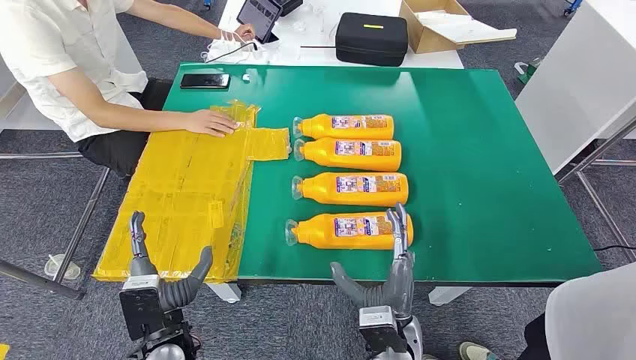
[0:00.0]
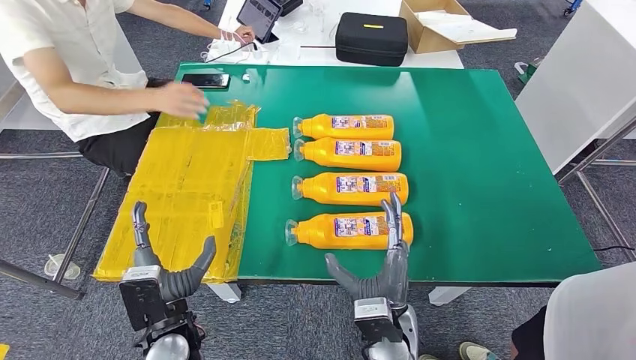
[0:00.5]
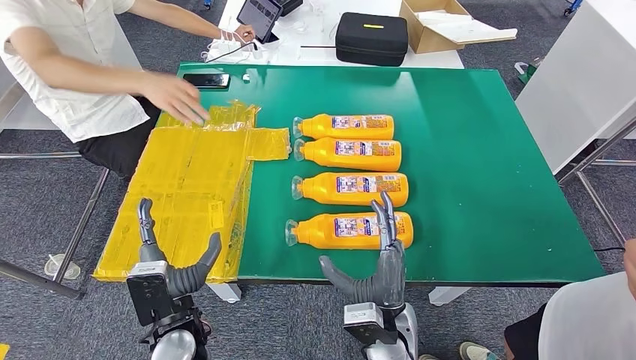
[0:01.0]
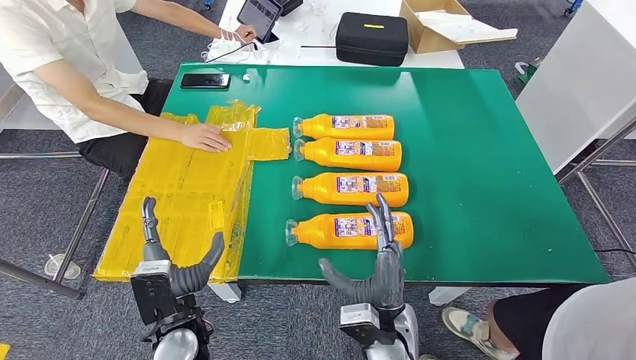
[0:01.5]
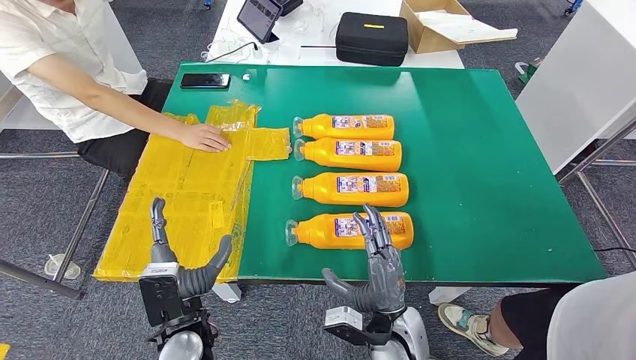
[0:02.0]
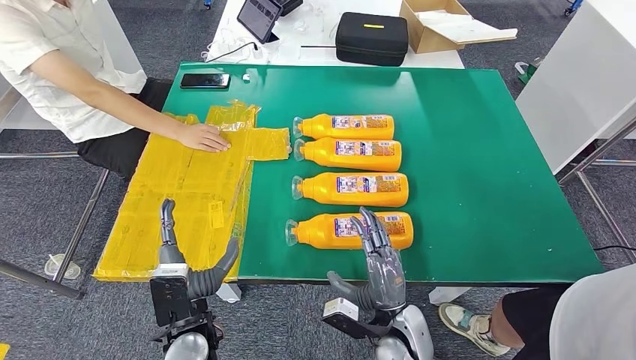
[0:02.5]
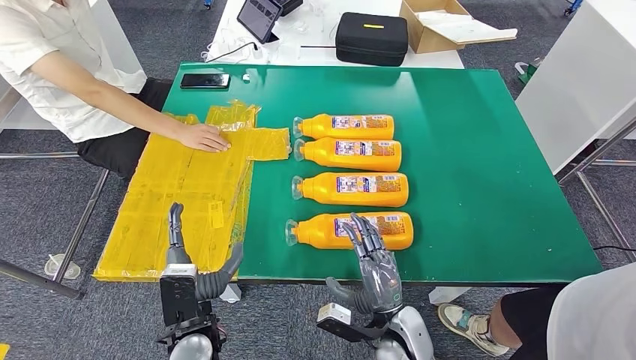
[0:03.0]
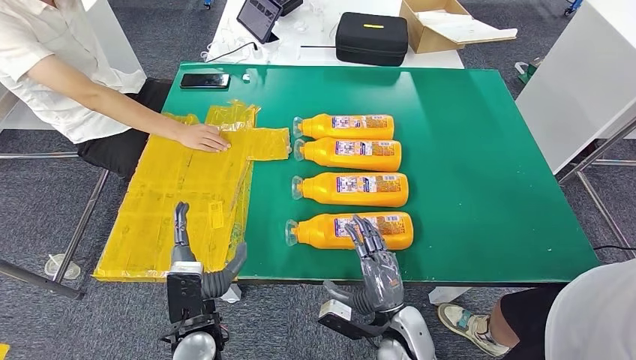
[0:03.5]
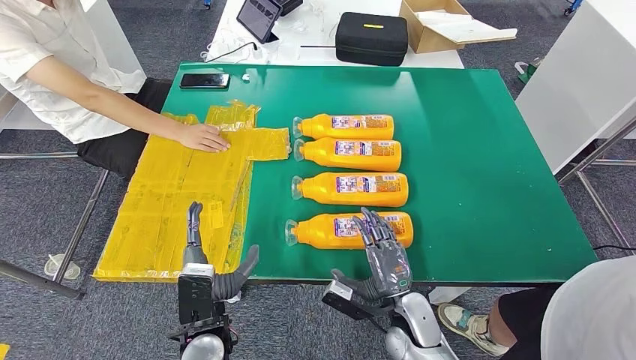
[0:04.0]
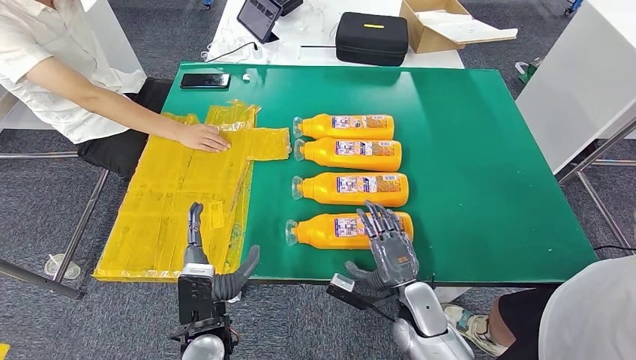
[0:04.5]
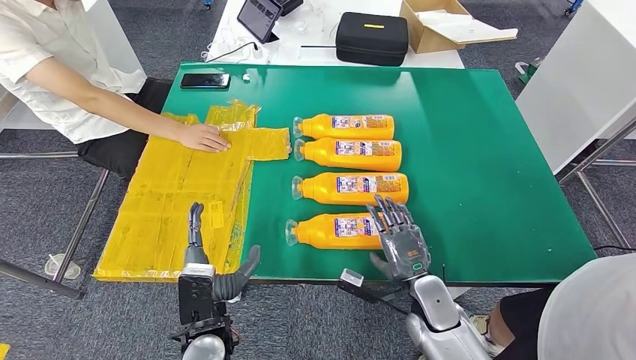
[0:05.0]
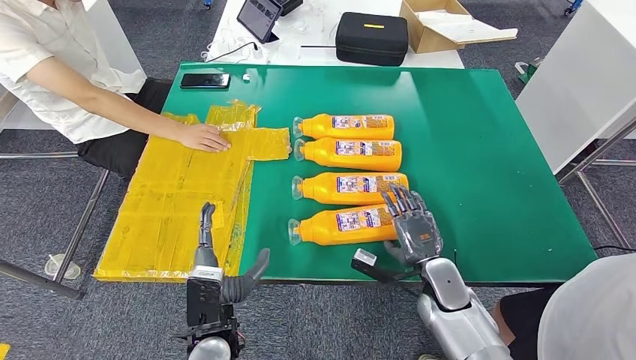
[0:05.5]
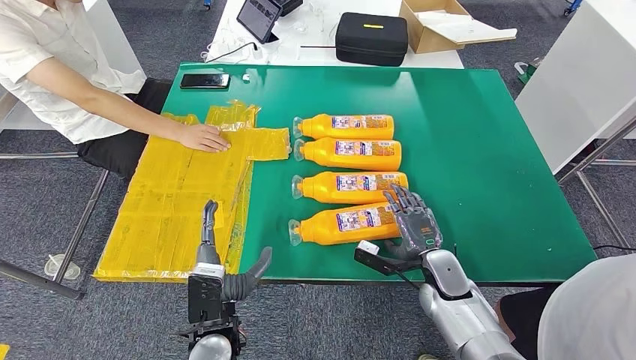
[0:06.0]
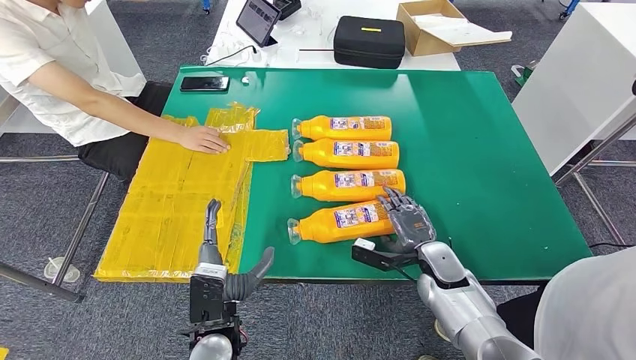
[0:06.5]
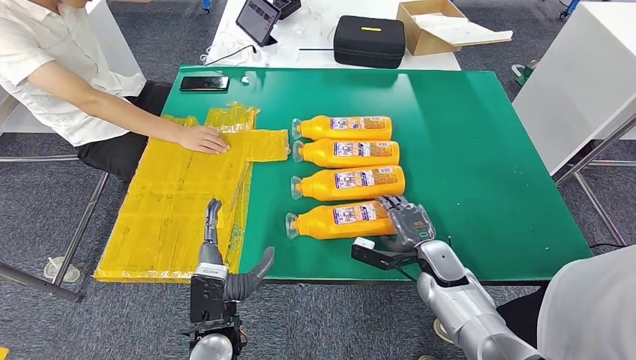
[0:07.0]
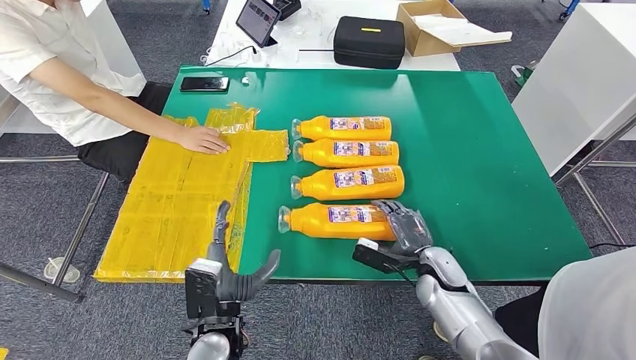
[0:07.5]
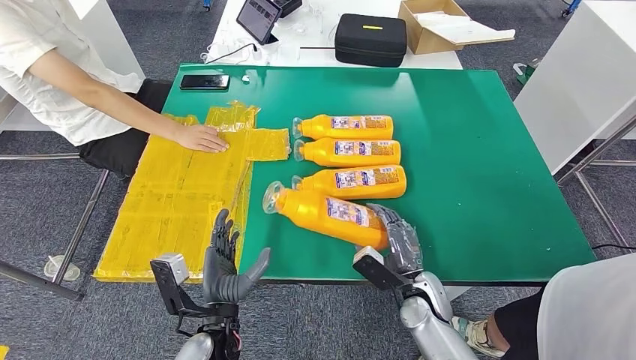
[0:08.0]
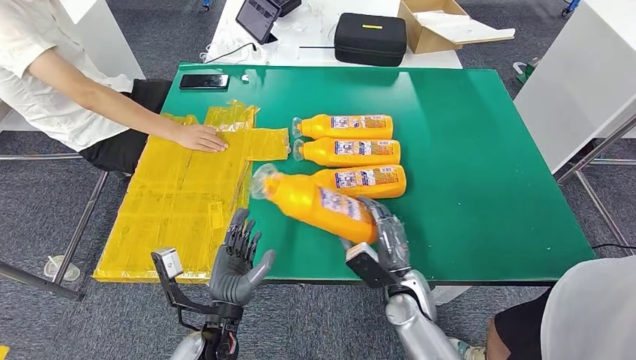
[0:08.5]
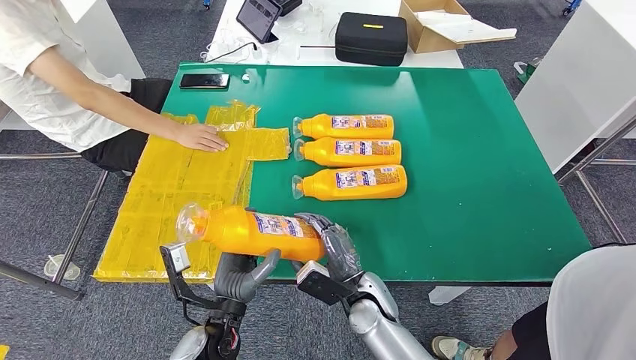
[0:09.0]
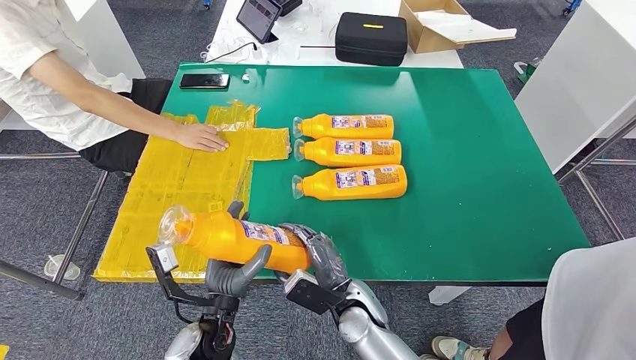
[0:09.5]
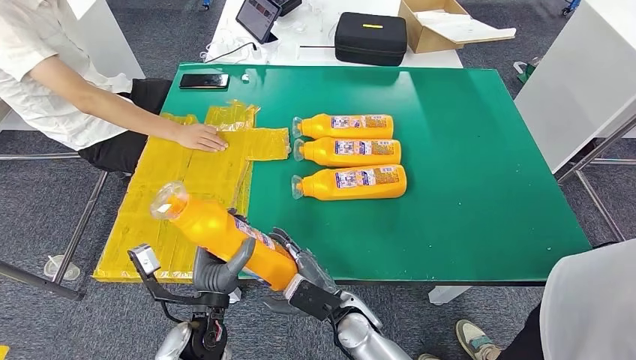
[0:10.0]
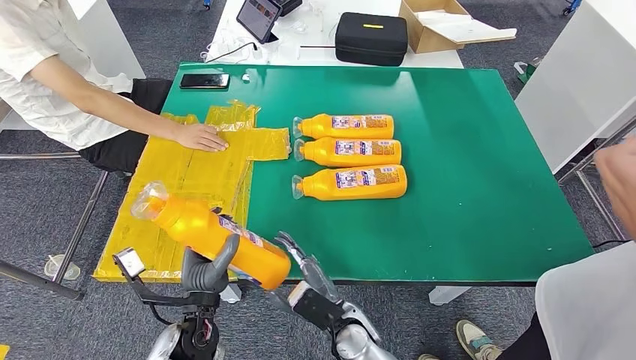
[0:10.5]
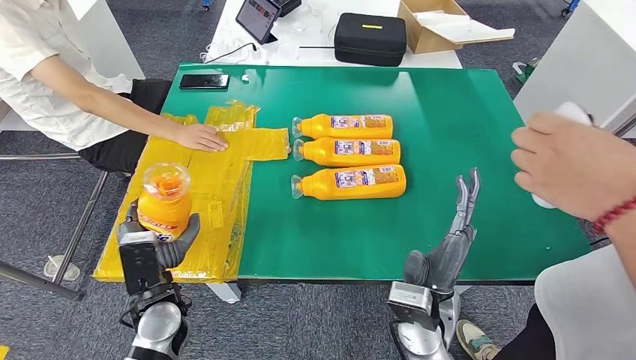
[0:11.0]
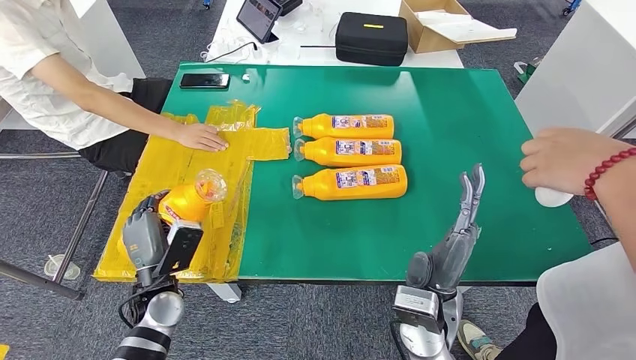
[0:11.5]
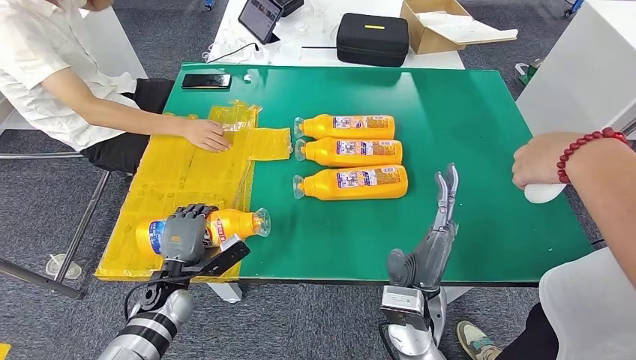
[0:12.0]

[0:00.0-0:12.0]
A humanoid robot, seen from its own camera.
Step, 0:00.0 to 0:08.5: Take the fast-moving consumer goods bottle from the table.
0:02.0 to 0:04.0: The right hand changes place by roughly 5 cm.
0:04.0 to 0:06.0: The right hand shifts approximately 10 cm to the right and forward.
0:06.0 to 0:08.0: The right hand changes place by some 5 cm.
0:08.0 to 0:10.0: The right hand is displaced to the left by roughly 15 cm.

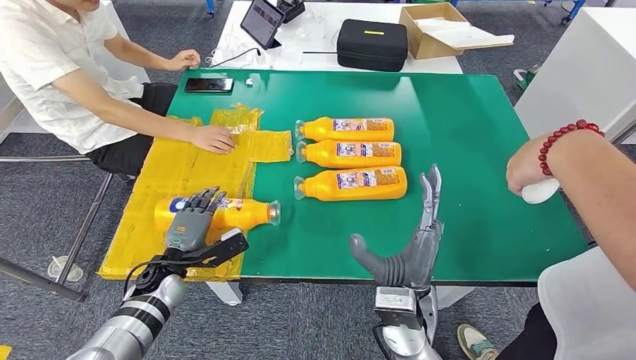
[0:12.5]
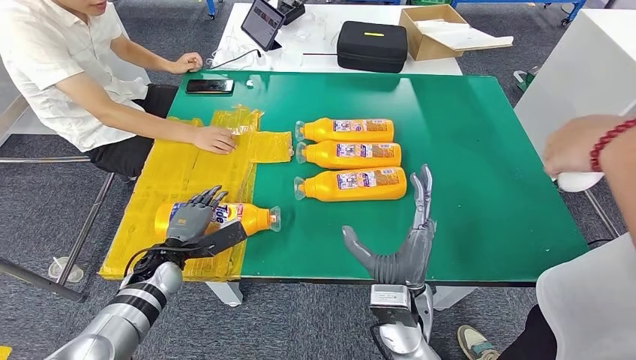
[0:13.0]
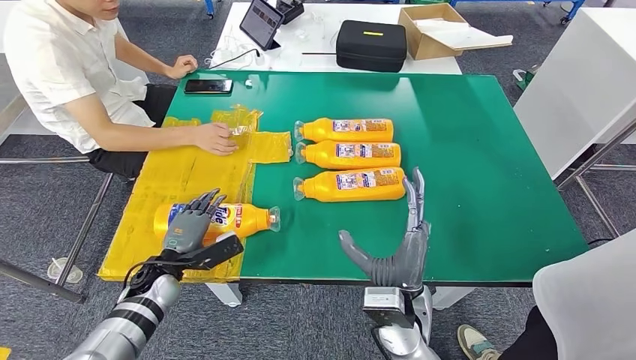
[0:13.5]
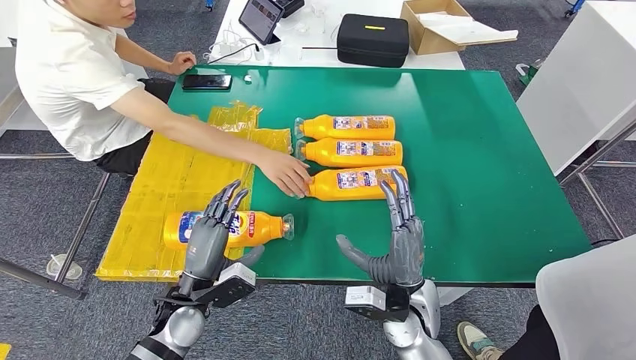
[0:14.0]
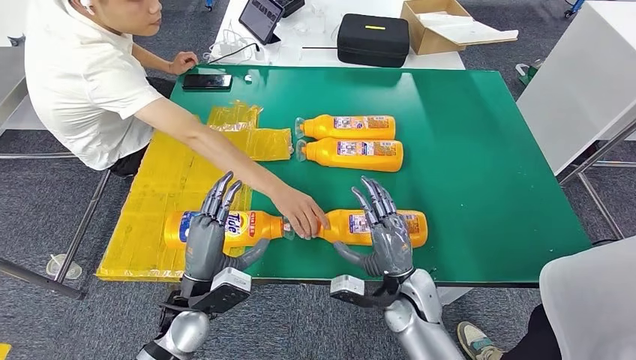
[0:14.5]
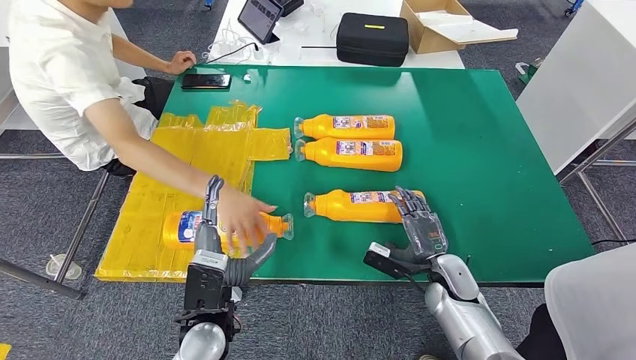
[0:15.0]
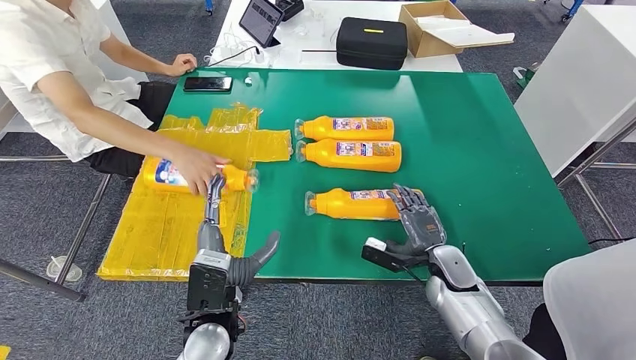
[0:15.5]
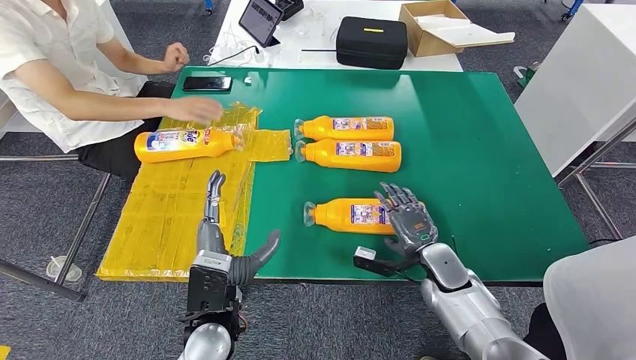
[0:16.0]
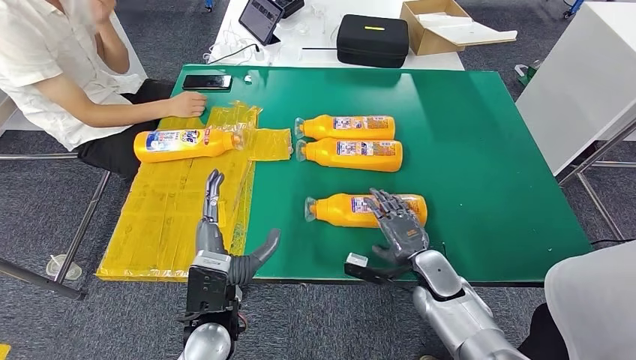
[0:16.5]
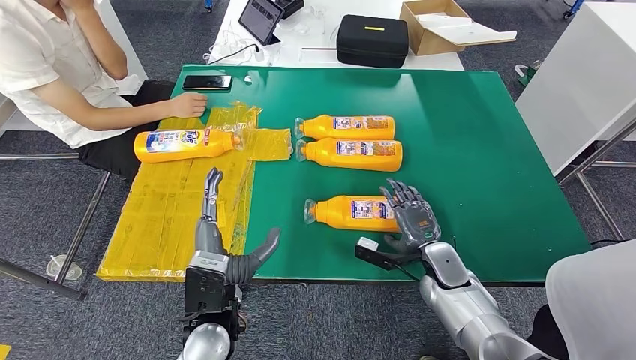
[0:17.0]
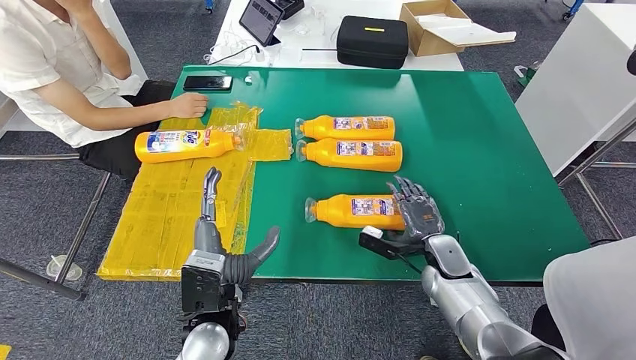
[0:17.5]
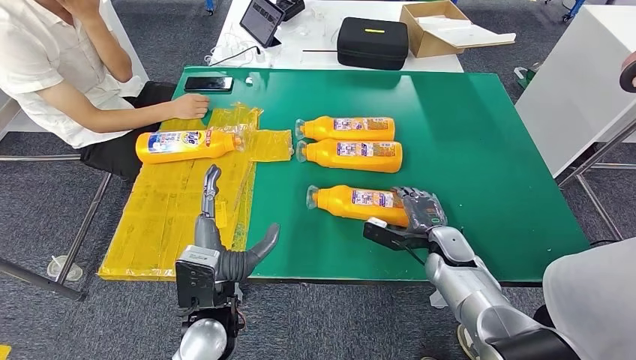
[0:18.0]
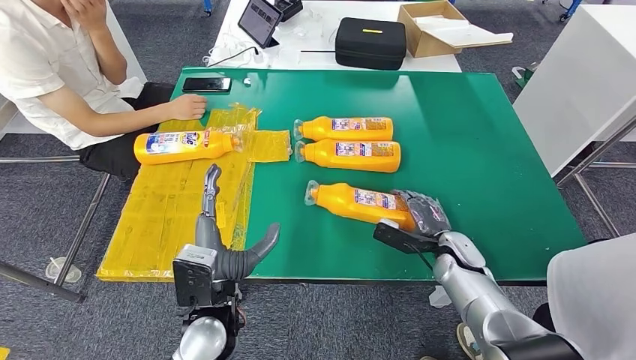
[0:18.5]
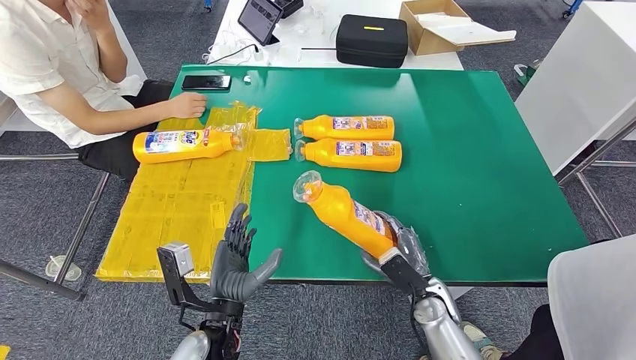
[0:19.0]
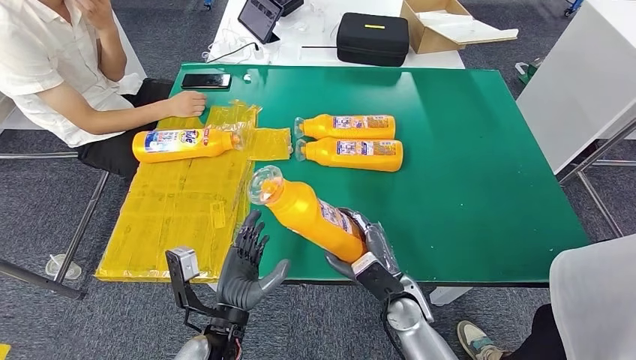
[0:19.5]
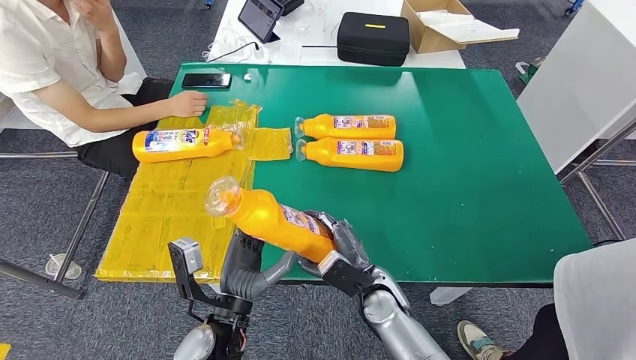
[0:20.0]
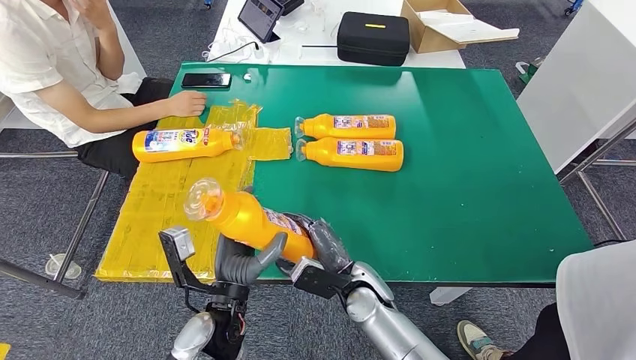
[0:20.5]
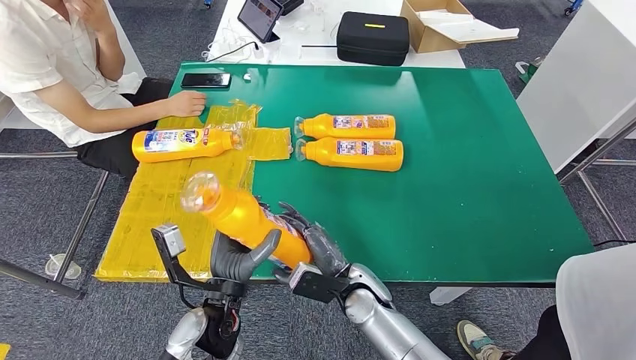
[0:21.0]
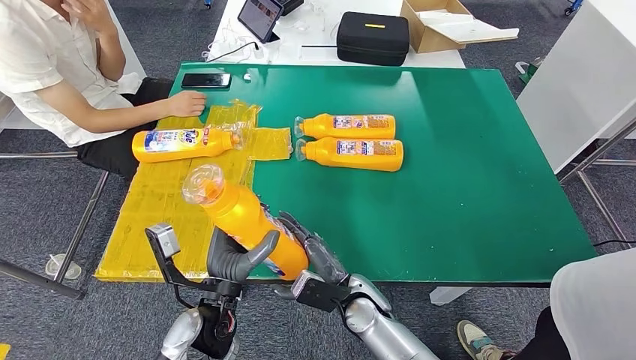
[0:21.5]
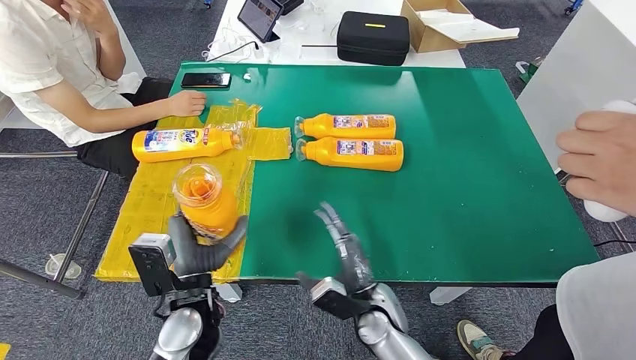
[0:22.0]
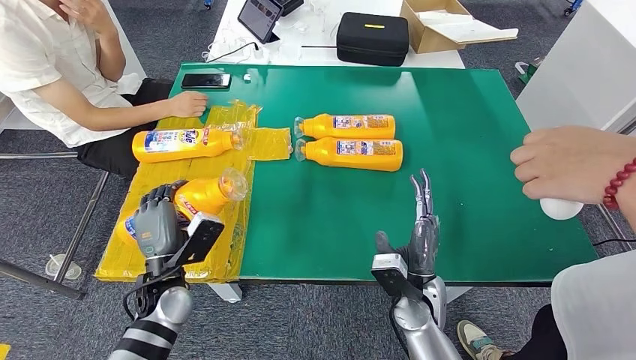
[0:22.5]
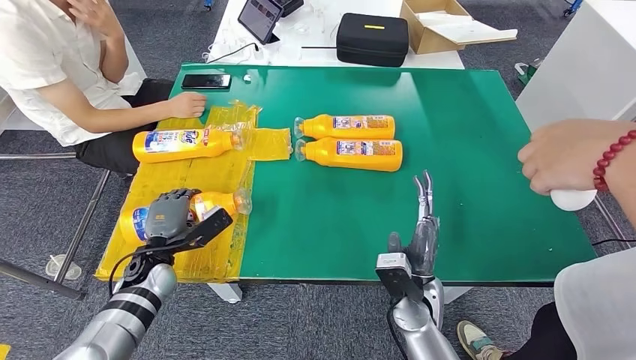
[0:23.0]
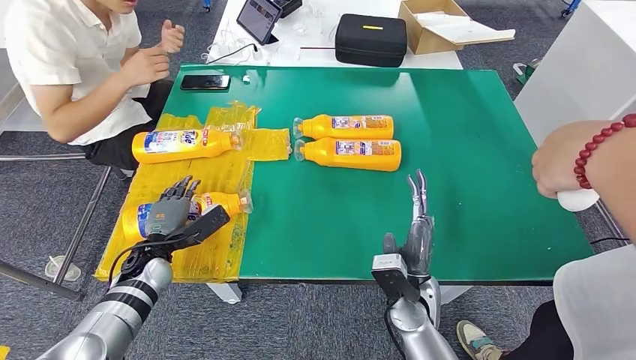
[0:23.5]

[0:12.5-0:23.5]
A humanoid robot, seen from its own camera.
Step, 0:14.0 to 0:19.0: Pick up the fast-moving consumer goods bottle from the table.
Step, 0:19.5 to 0:23.0: Flip the fast-moving consumer goods bottle to the front side.
0:20.0 to 0:21.5: The hands stay close to where they were, moving slightly.
